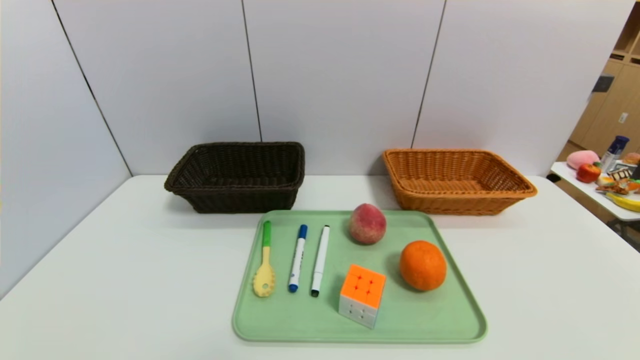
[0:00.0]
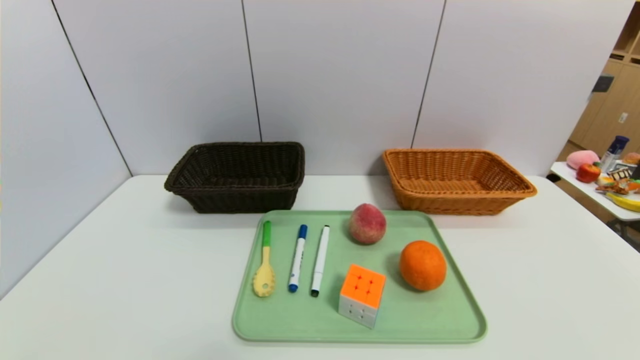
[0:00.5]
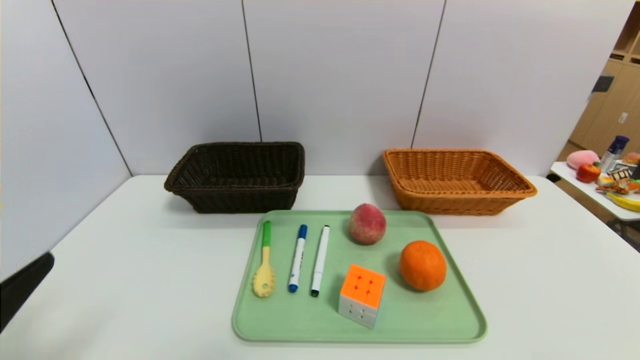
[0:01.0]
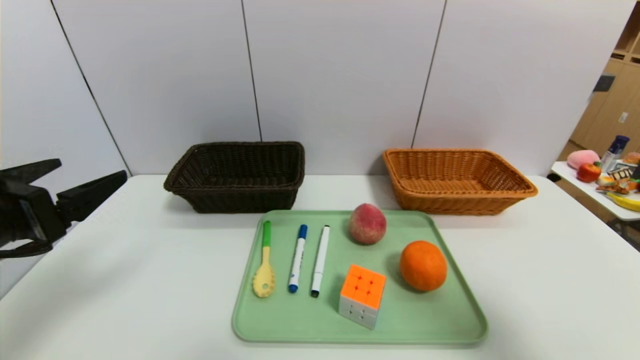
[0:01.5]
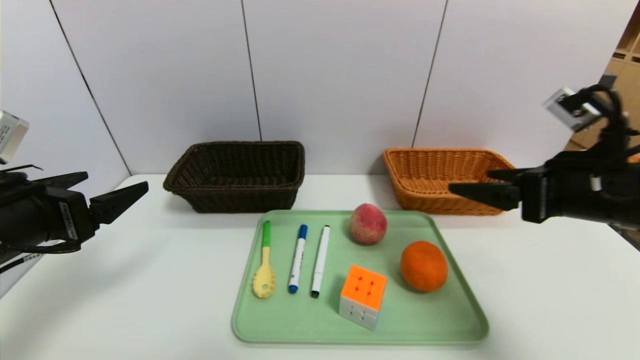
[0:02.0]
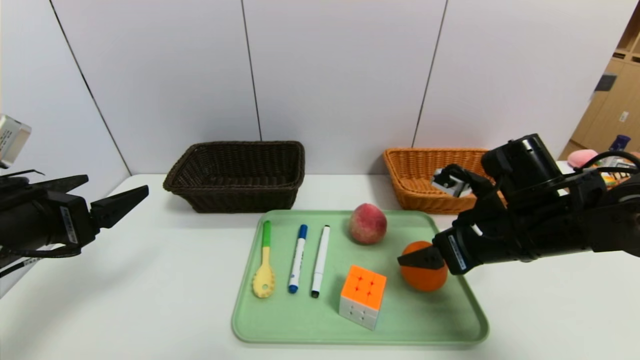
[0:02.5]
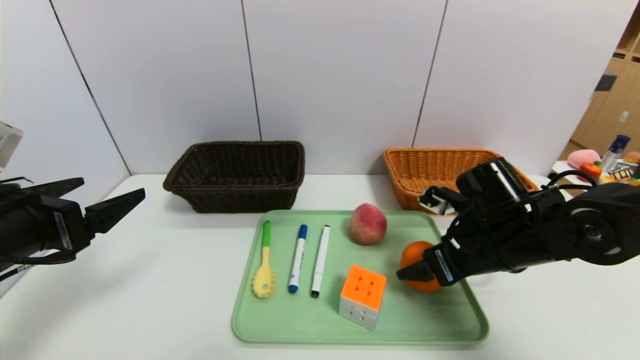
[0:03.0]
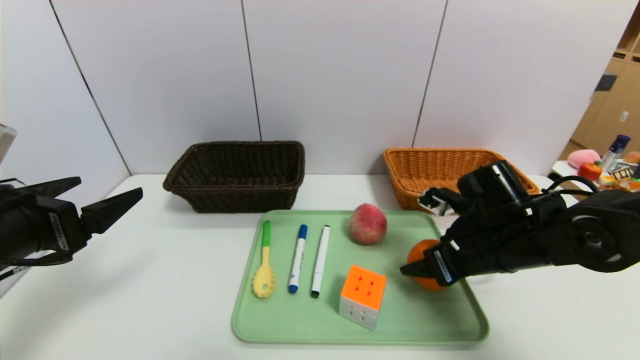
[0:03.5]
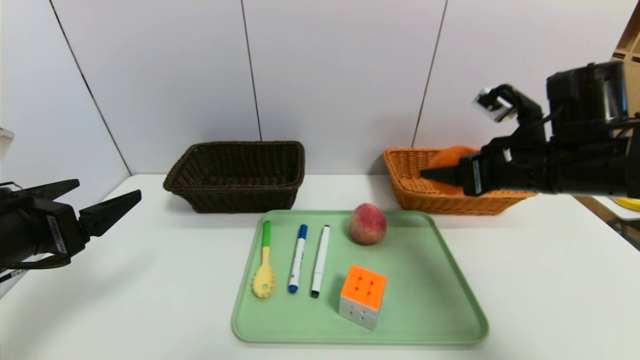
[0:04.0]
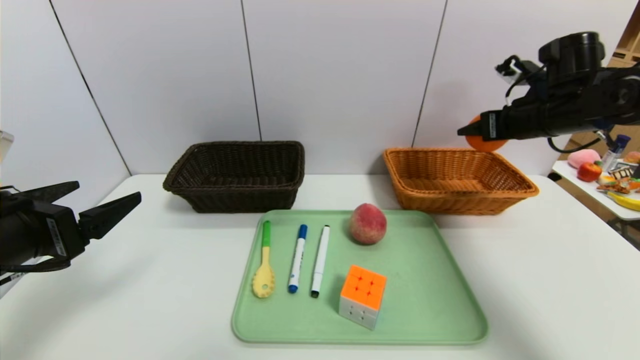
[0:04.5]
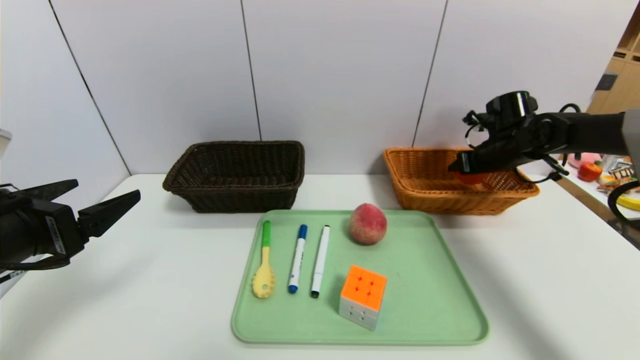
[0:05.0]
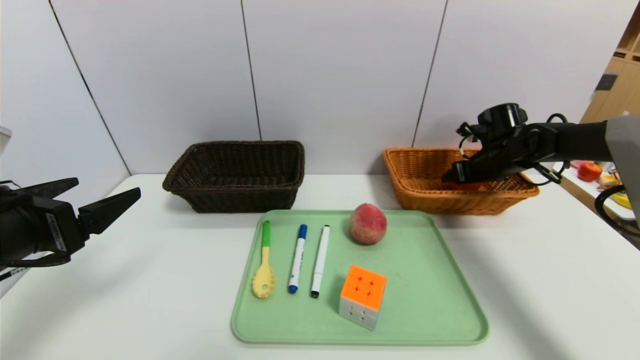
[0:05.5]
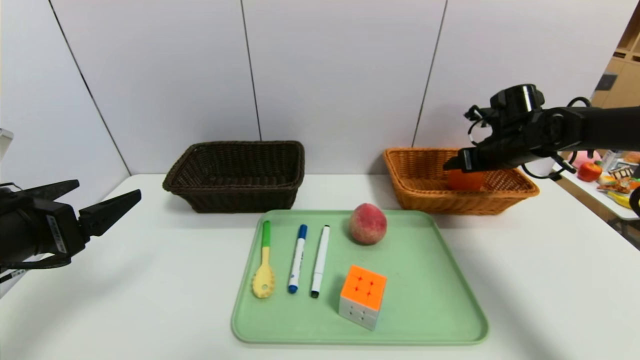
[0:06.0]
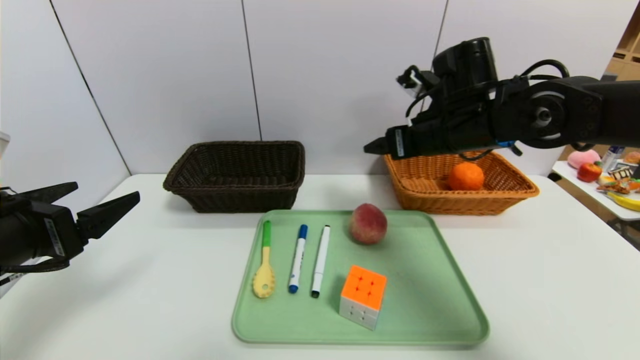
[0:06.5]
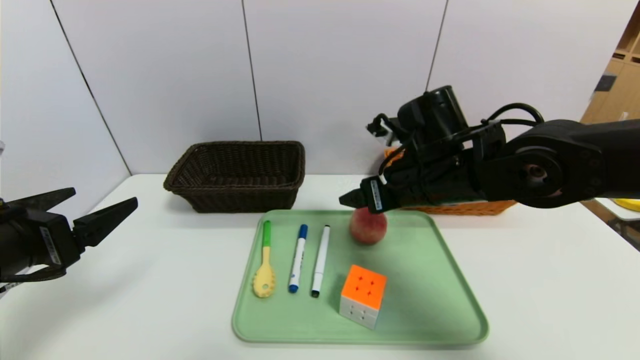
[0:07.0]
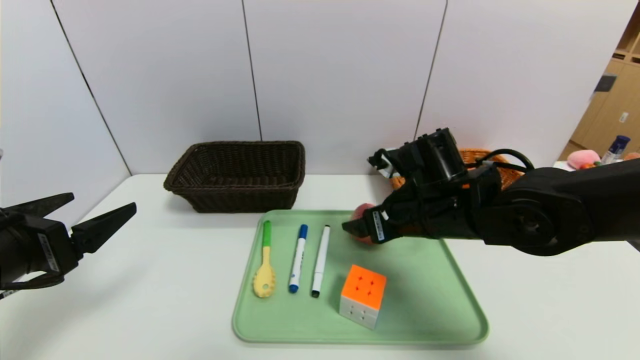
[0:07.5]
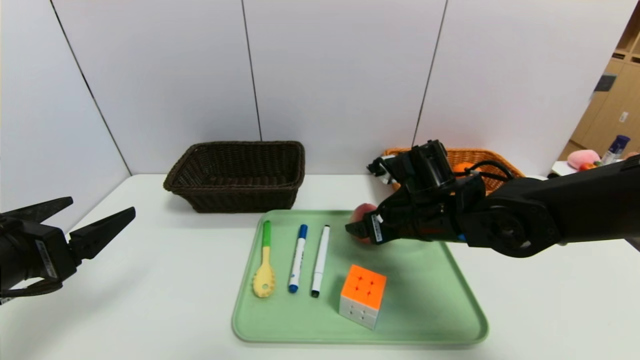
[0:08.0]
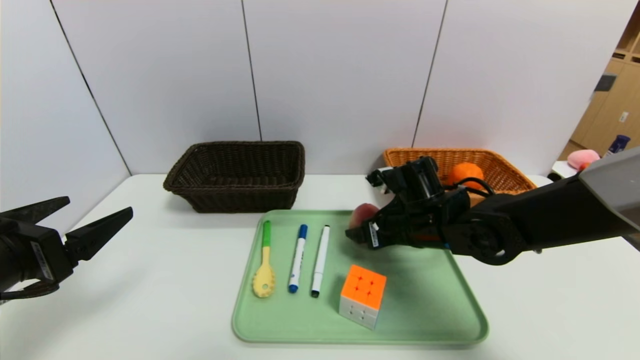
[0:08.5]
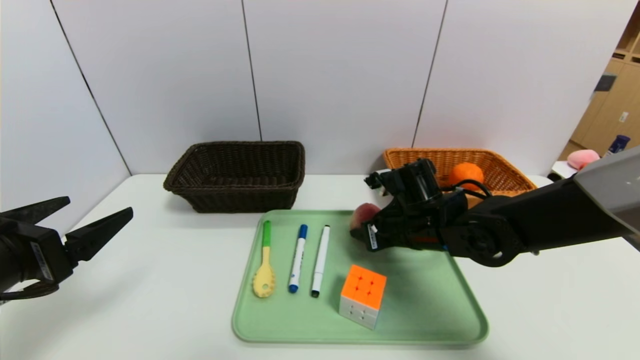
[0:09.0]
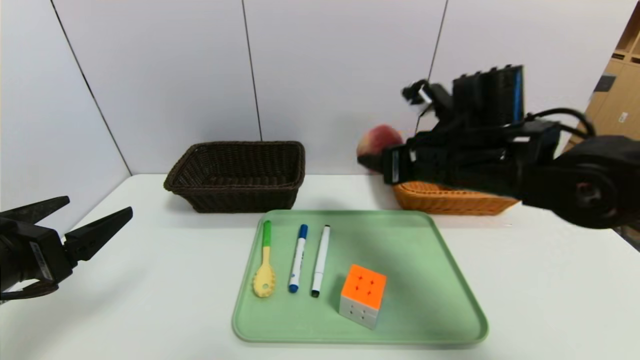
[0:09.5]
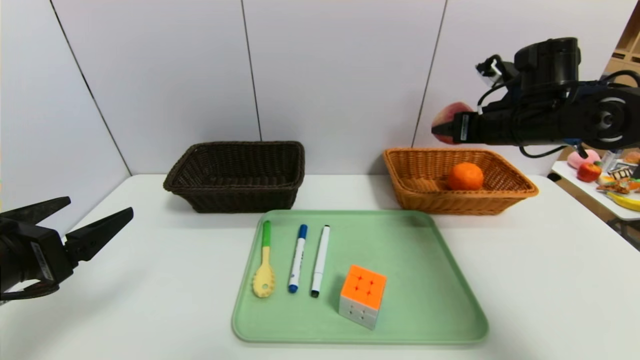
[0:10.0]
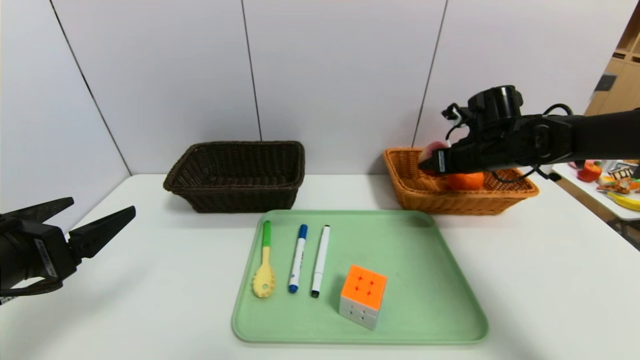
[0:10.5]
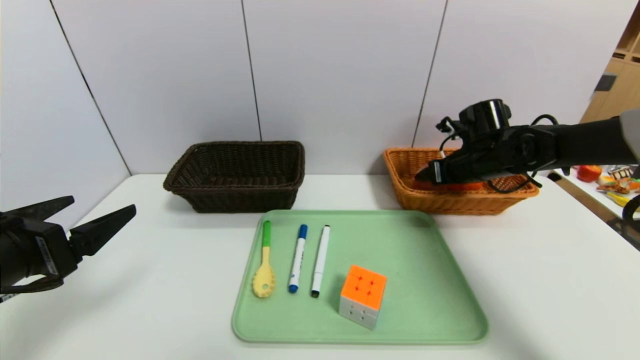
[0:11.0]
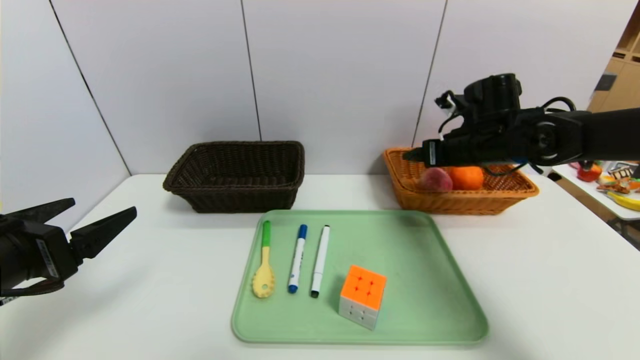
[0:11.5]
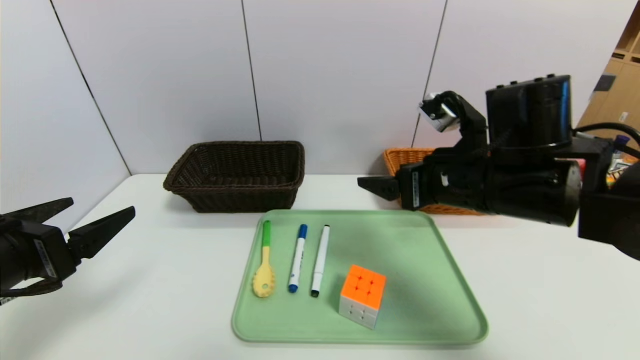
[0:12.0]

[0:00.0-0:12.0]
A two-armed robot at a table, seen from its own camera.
Task of the whole recording: place the food in the right basket with the right gripper, and place the non food items in the left basket with the left gripper.
Step, 0:00.0 to 0:05.5: Grasp the orange and put it in the right basket.
Step, 0:06.0 to 0:11.0: Grasp the peach and put it in the right basket.
0:00.0 to 0:02.0: The two grippers go approximately 25 cm forward and upward.
0:02.0 to 0:04.0: The right gripper shifts some 5 cm forward, and moves roughly 10 cm downward and comes back.
0:04.0 to 0:06.0: The right gripper moves forward and to the right, approximately 15 cm.
0:06.0 to 0:08.0: The right gripper goes some 25 cm to the left and backward.
0:08.0 to 0:10.0: The right gripper heads to the right, upward and forward, covering some 20 cm, and closes up.
0:10.0 to 0:12.0: The right gripper heads backward and to the left, covering about 15 cm, and opens up.

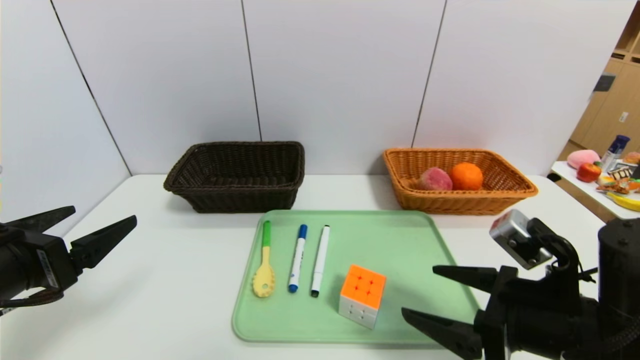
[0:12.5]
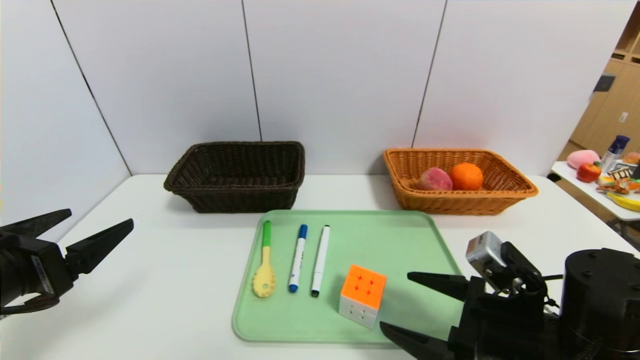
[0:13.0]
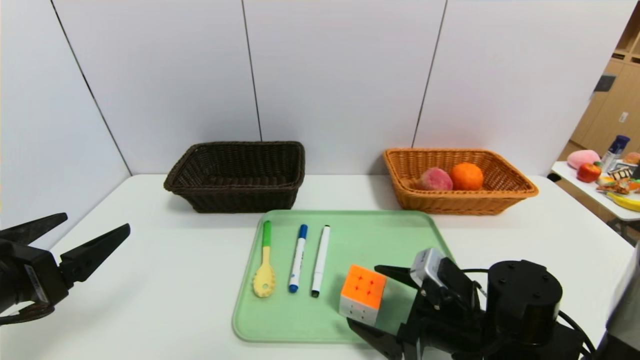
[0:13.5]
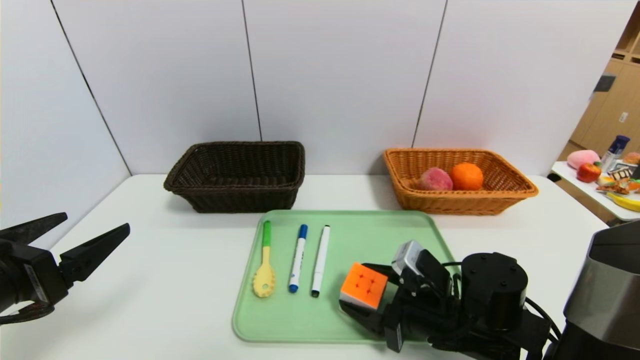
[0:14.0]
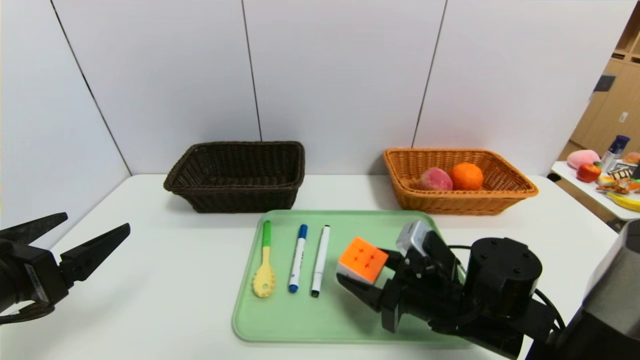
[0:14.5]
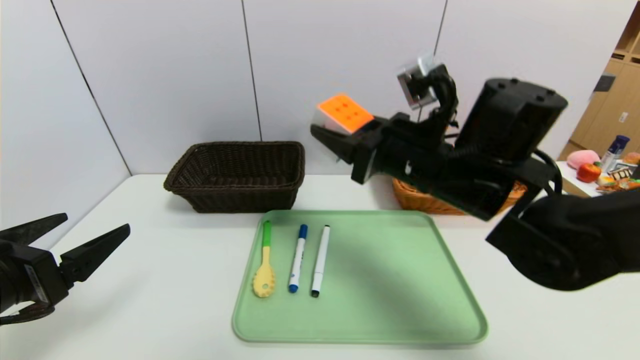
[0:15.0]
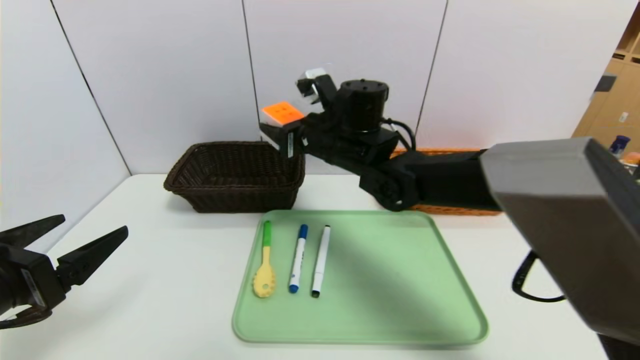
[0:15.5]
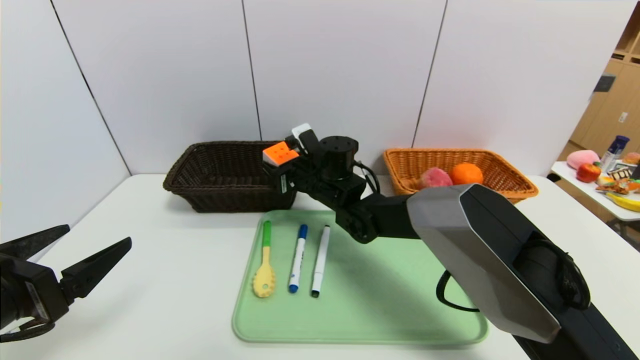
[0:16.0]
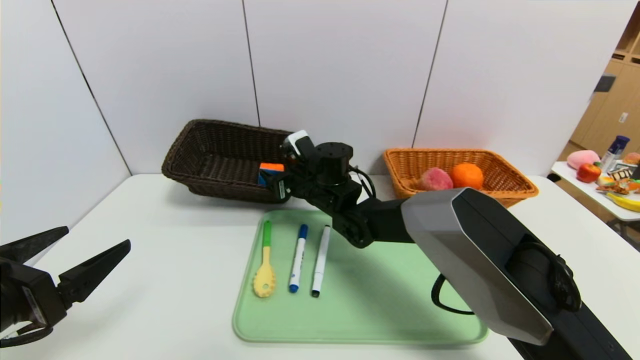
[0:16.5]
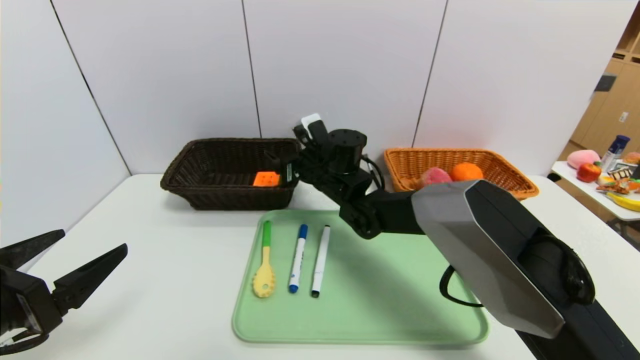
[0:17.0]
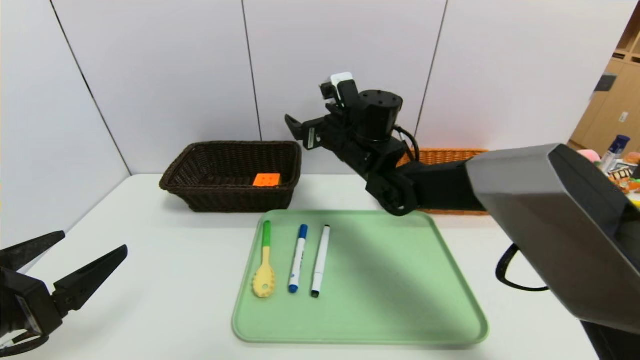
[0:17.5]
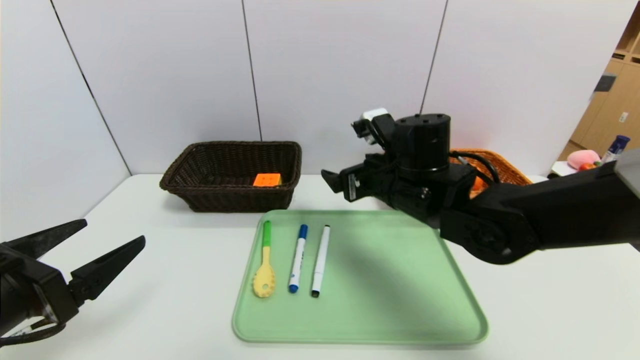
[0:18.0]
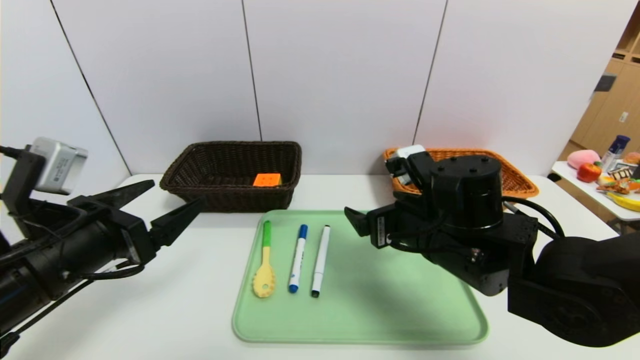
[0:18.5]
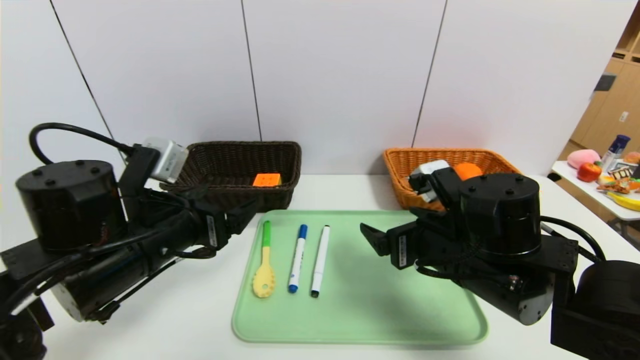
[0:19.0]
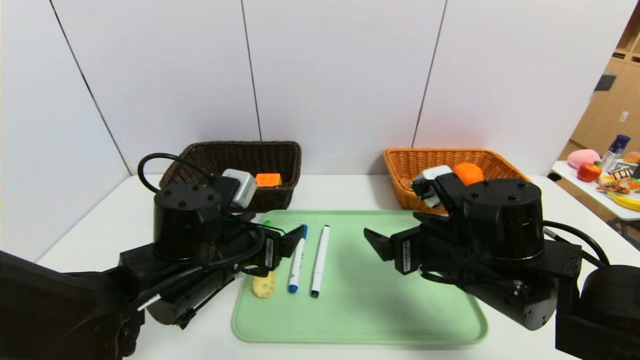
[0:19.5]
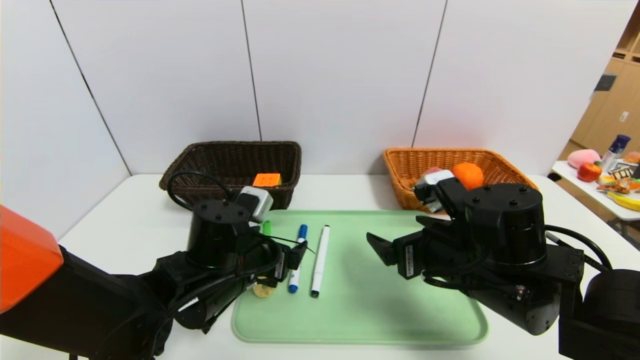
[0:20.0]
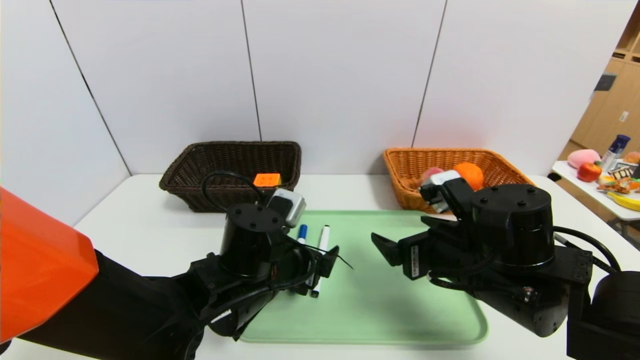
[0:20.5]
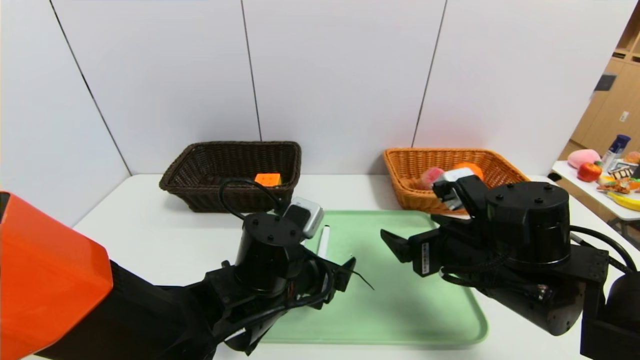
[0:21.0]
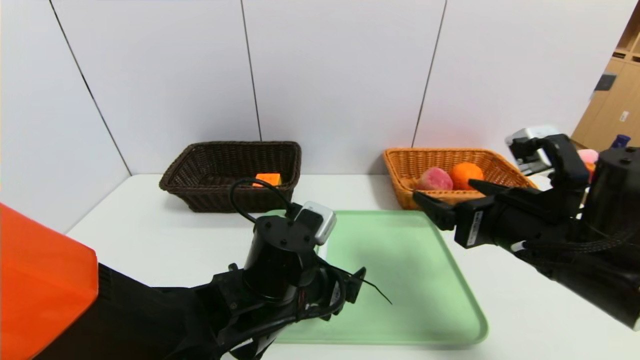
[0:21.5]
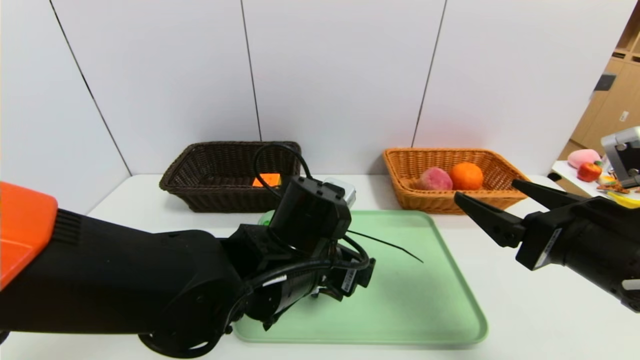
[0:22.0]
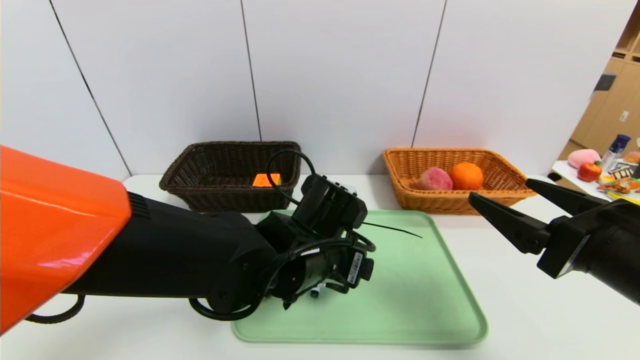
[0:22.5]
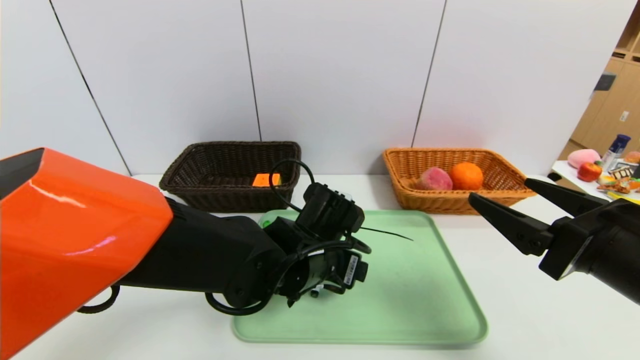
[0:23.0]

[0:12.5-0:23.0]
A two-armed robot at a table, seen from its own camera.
Task of the whole recording: place the food in the right basket with the right gripper, and place the non food items in the left basket with the left gripper.
0:12.5 to 0:14.5: The right gripper is displaced forward, to the left and downward by approximately 10 cm, and closes.
0:14.5 to 0:16.5: The right gripper travels forward and to the left by about 25 cm.
0:16.5 to 0:19.0: The left gripper shifts roughly 15 cm to the right and forward. The right gripper is displaced backward and to the right by some 25 cm.
0:19.0 to 0:21.0: The left gripper goes roughly 15 cm to the right and downward.
0:21.0 to 0:23.0: The right gripper heads backward, to the right and upward, covering about 15 cm; the left gripper changes place by roughly 5 cm.
